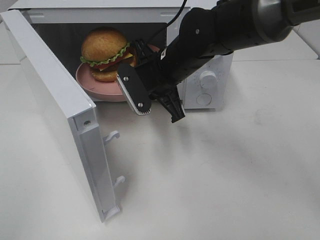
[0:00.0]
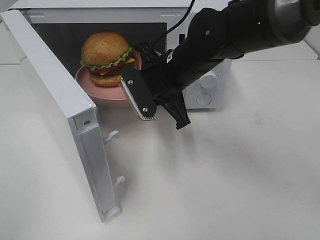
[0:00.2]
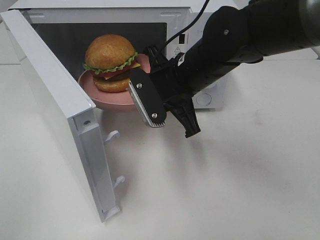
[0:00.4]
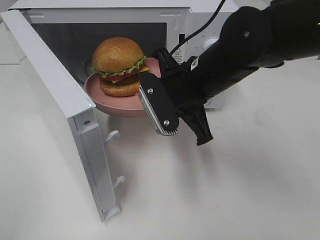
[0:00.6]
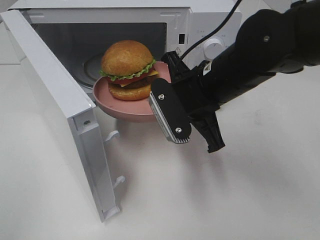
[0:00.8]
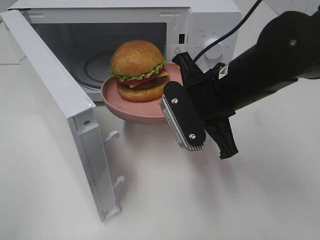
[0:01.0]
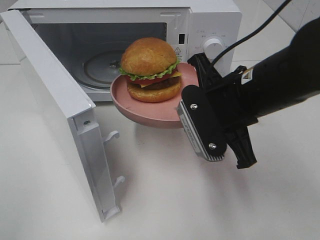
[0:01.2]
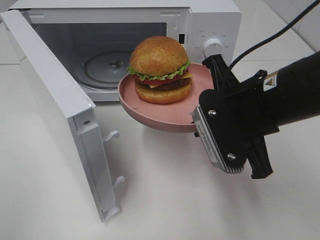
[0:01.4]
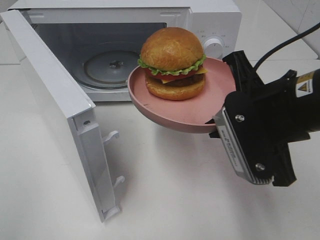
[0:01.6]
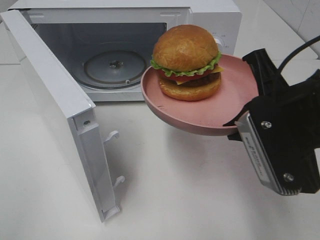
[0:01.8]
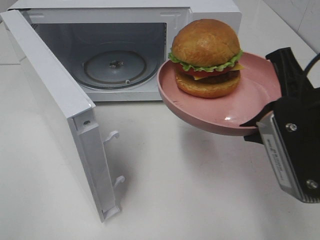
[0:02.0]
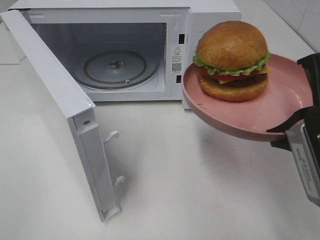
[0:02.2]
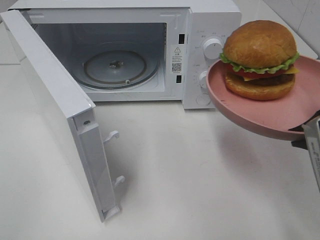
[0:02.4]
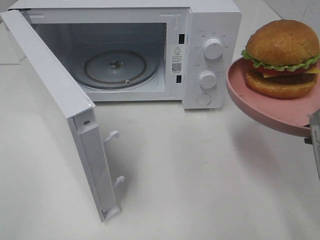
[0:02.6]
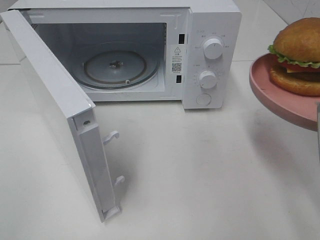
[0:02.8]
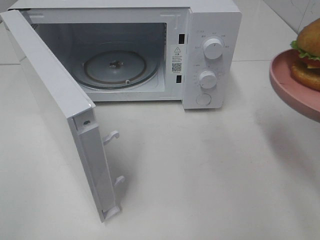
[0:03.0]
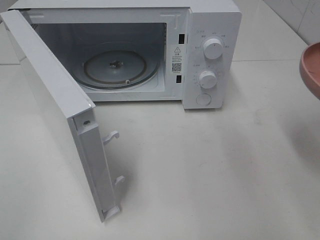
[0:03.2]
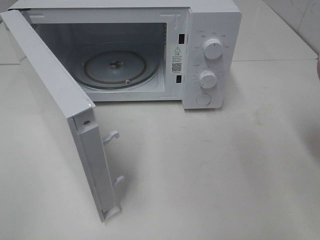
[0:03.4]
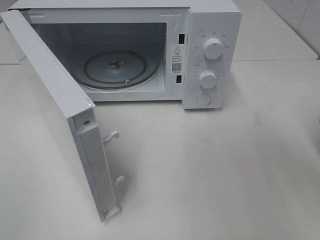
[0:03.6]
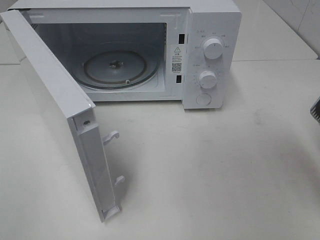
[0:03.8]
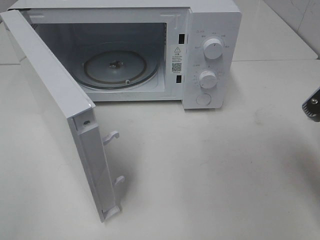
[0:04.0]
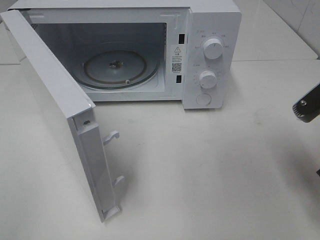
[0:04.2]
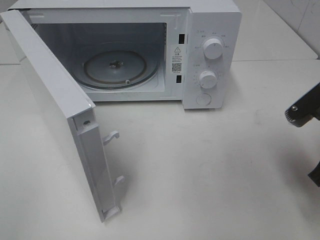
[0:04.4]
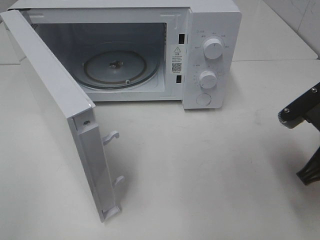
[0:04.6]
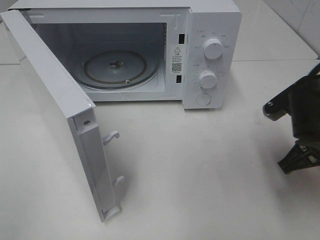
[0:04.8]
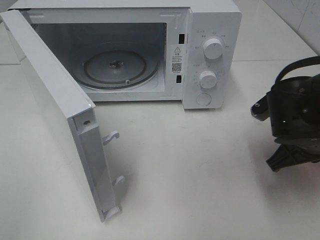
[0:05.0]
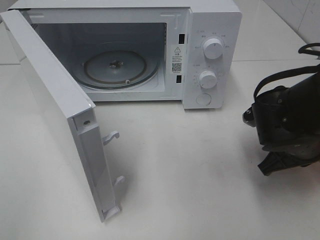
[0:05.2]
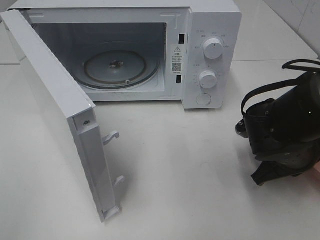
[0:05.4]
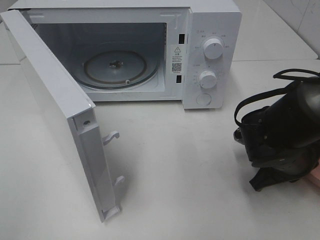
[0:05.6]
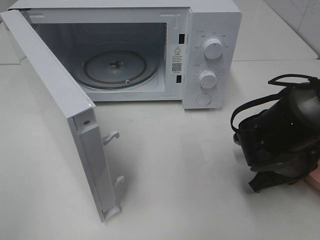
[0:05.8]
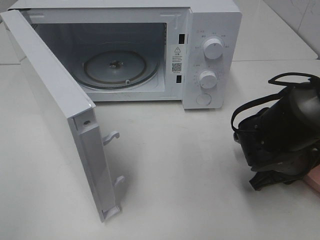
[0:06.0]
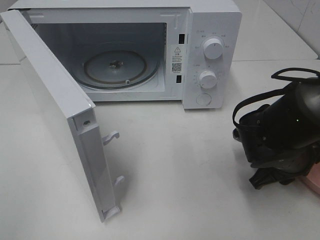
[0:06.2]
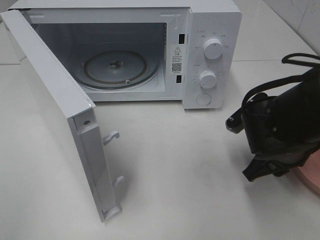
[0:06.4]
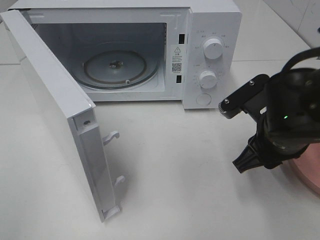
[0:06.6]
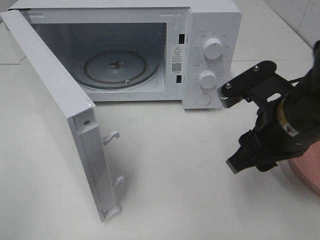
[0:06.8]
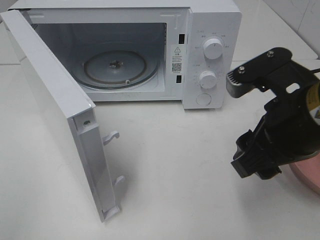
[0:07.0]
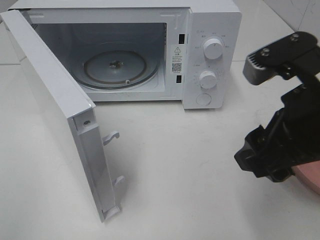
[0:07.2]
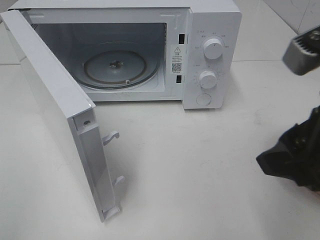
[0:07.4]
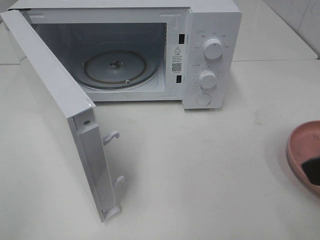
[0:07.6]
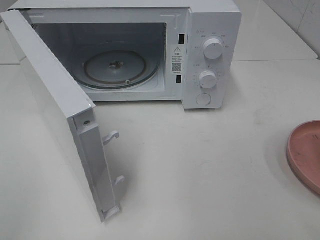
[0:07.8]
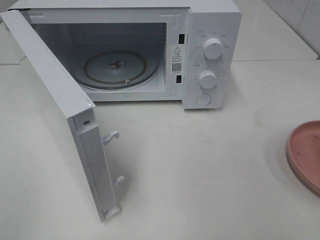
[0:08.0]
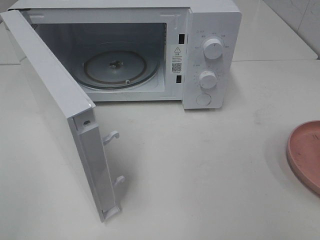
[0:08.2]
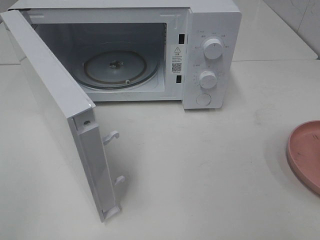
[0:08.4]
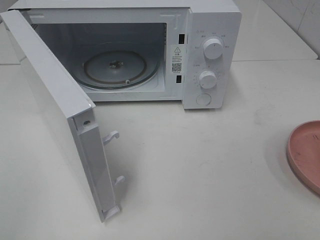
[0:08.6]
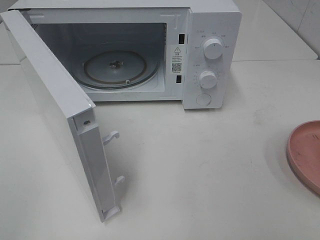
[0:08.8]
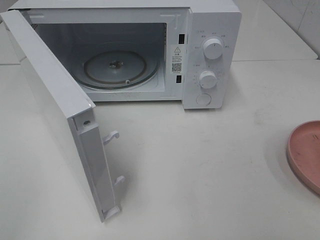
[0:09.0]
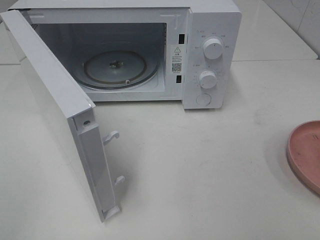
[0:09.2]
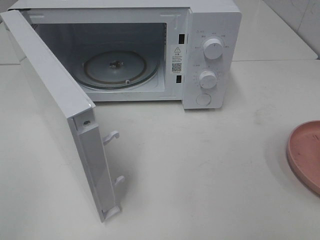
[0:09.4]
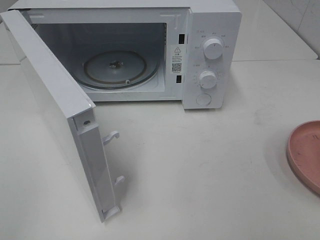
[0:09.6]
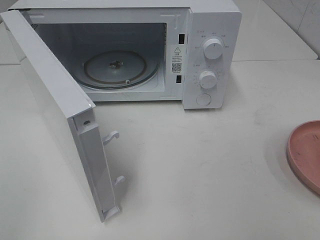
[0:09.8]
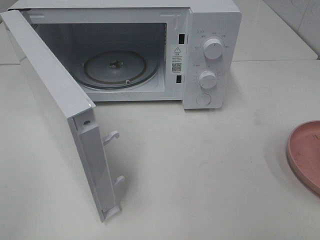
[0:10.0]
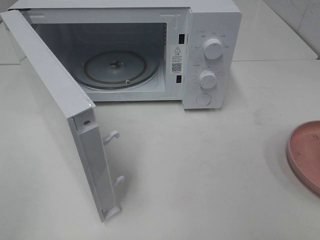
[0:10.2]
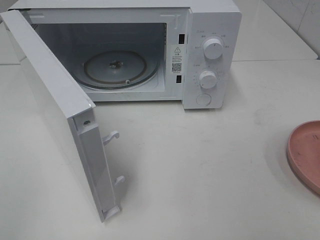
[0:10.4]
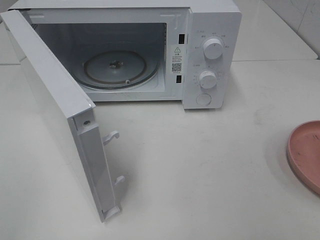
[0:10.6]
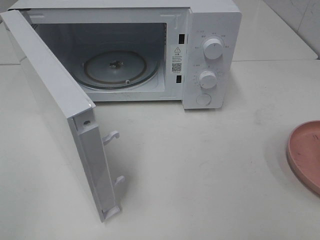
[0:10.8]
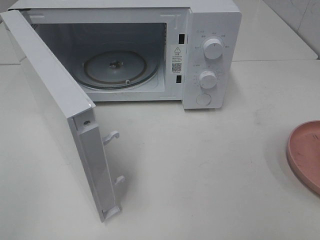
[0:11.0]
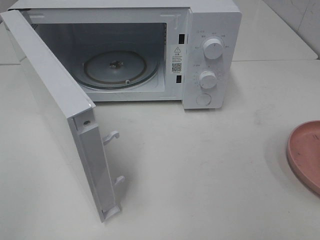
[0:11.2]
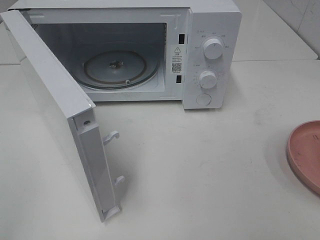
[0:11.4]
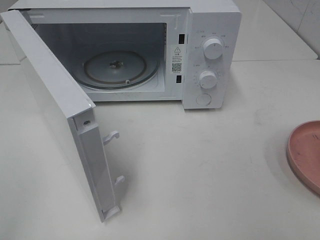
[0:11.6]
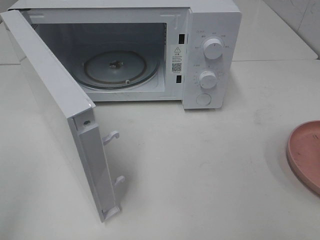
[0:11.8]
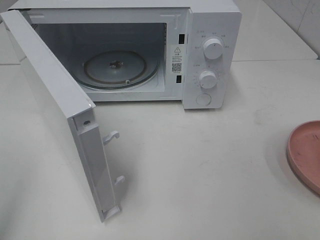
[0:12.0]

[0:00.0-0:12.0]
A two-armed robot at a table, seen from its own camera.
Task of the whole recording: Heat the burger.
Step, 0:00.0 to 0:06.4: Right hand: place the plate on the table.
0:00.0 to 0:01.6: The right gripper shifts approximately 20 cm backward and to the right.
0:01.6 to 0:03.0: The right gripper travels to the right and backward by about 10 cm.
0:03.0 to 0:04.4: The right gripper heads downward, covering some 5 cm.
0:04.4 to 0:06.0: The right gripper travels downward and forward by some 10 cm.
0:06.0 to 0:07.6: The right gripper heads upward and backward, covering about 25 cm, and opens up.
0:07.6 to 0:09.0: The right gripper is displaced backward and to the right by roughly 15 cm.
0:09.0 to 0:10.4: Neither gripper changes place.

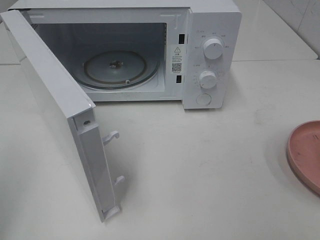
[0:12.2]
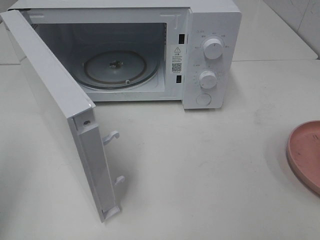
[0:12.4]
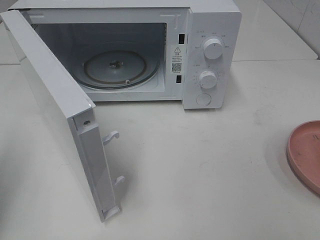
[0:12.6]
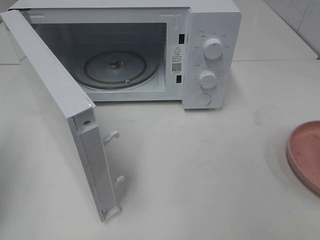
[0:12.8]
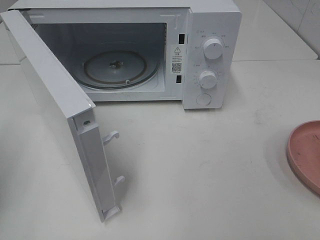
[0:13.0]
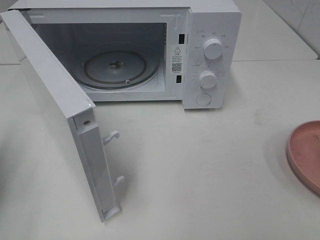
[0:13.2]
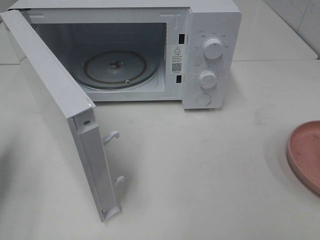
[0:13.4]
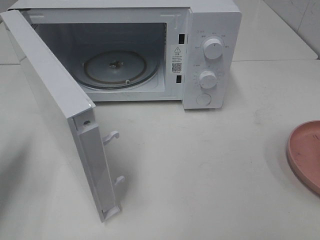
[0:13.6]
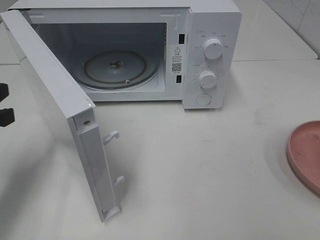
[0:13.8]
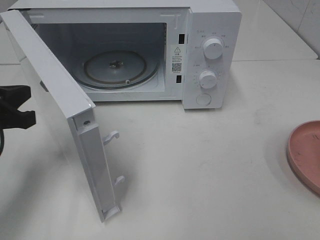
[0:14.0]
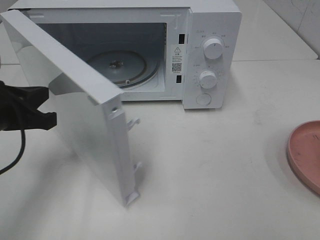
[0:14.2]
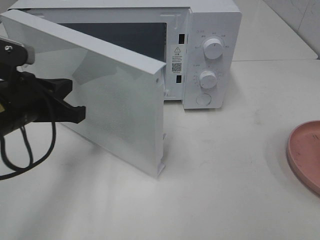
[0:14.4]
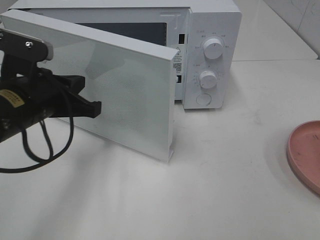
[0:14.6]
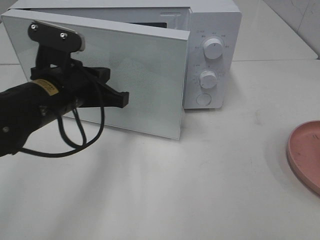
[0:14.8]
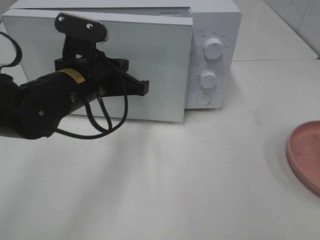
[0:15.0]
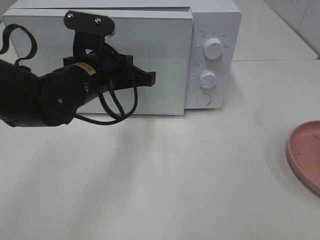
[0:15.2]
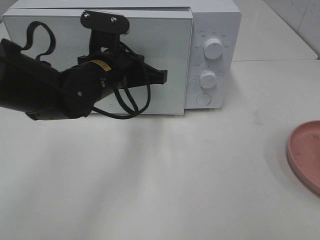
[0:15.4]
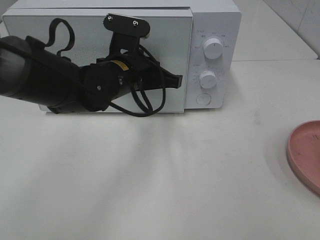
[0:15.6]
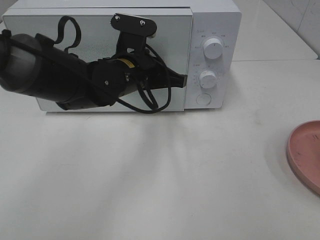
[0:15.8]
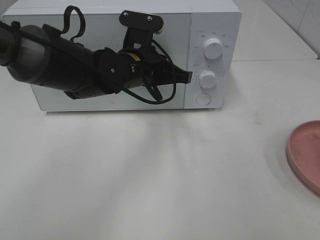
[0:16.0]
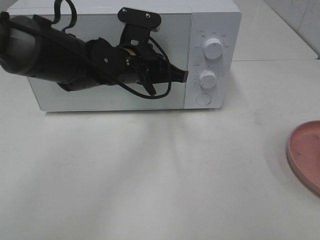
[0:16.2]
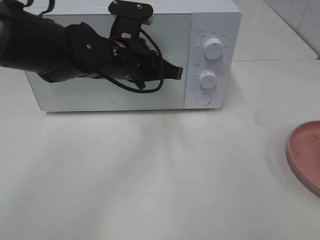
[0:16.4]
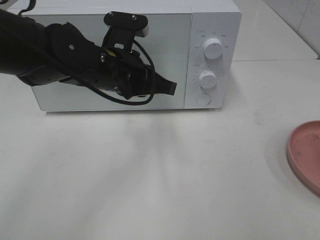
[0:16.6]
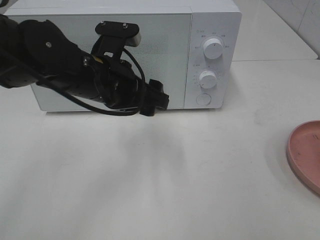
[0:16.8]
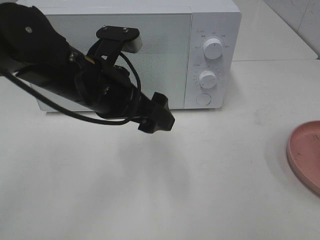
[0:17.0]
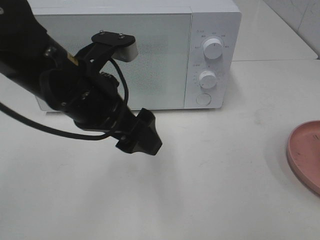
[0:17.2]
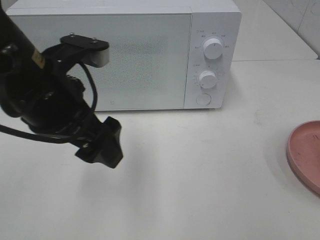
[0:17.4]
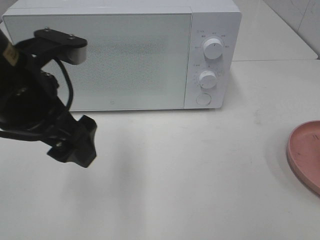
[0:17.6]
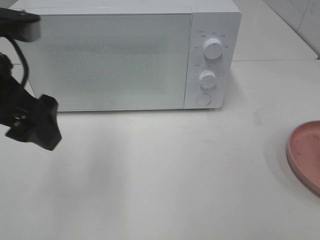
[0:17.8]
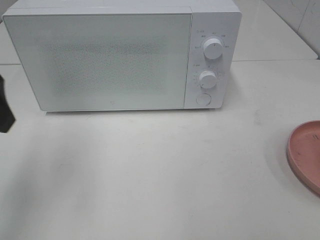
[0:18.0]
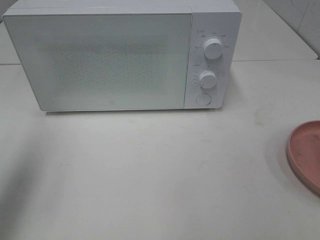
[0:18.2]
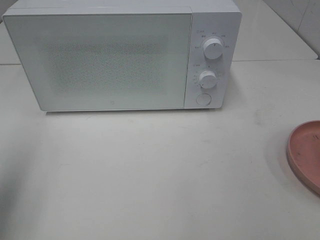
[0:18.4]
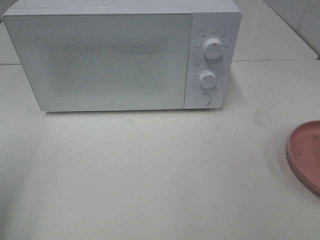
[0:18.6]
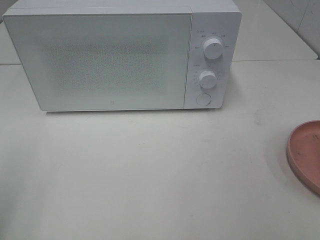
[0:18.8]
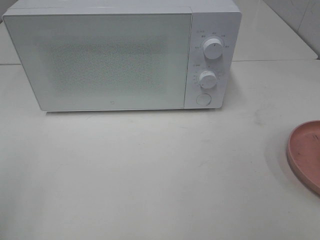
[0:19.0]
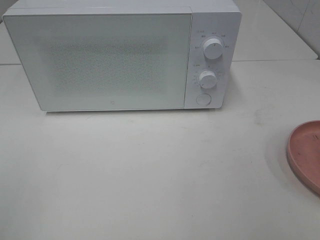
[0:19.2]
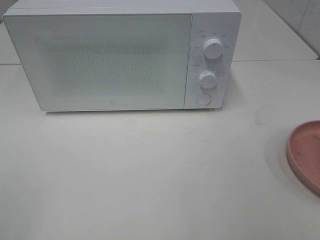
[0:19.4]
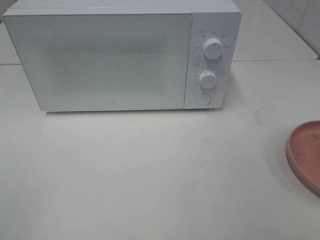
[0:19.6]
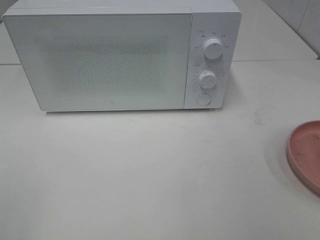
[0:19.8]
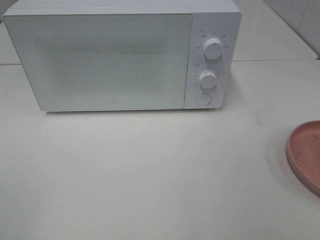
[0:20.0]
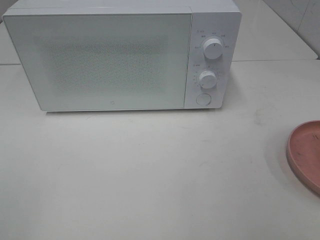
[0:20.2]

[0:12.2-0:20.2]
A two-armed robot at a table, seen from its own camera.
Task of the whole recording: Heat the burger.
Step, 0:12.2 to 0:16.6: Left hand: close the microwave door.
0:12.2 to 0:13.8: The left gripper shifts about 20 cm forward and downward.
0:13.8 to 0:15.4: The left gripper shifts roughly 25 cm to the right and forward.
0:15.4 to 0:17.0: The left gripper heads backward, covering roughly 5 cm, and opens up.
0:17.0 to 0:18.6: The left gripper goes roughly 30 cm to the left and backward.

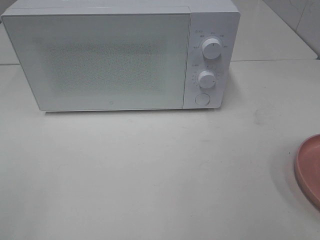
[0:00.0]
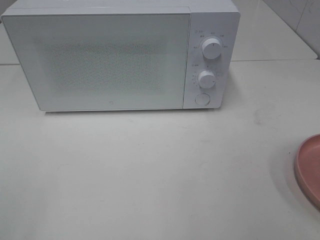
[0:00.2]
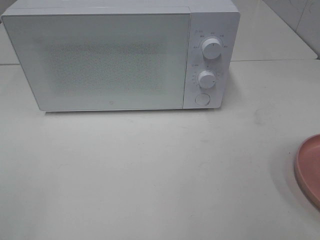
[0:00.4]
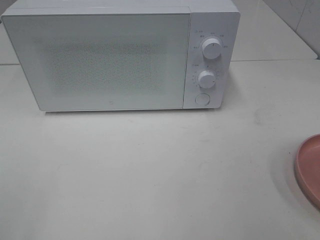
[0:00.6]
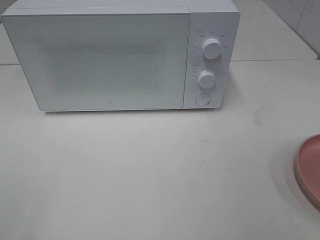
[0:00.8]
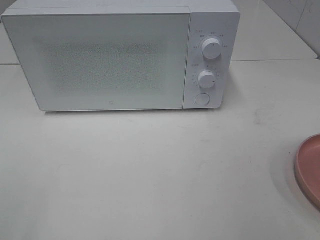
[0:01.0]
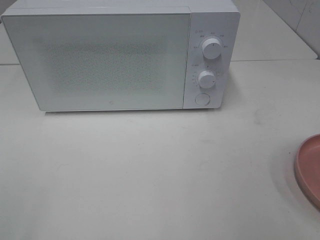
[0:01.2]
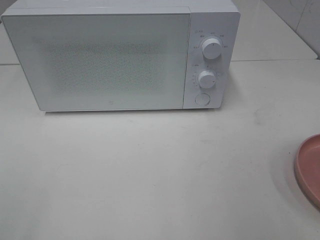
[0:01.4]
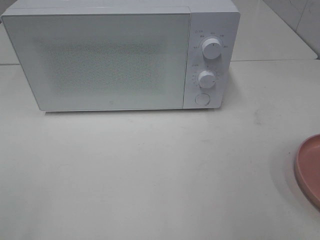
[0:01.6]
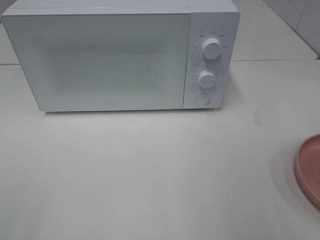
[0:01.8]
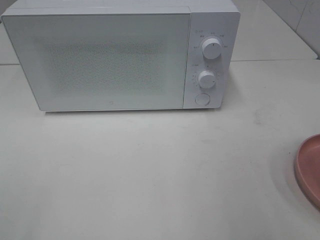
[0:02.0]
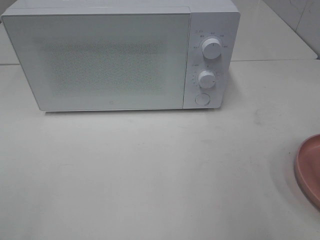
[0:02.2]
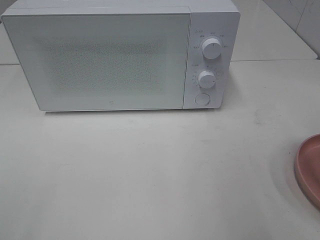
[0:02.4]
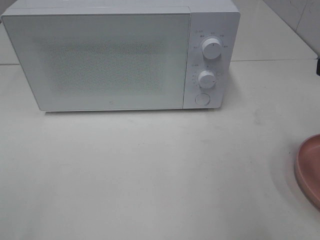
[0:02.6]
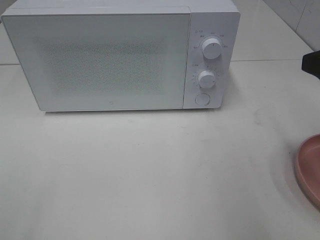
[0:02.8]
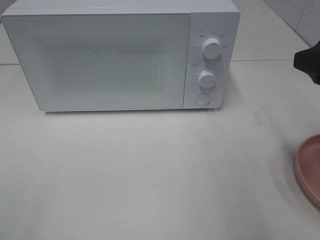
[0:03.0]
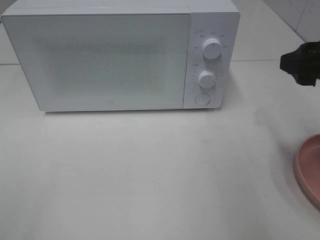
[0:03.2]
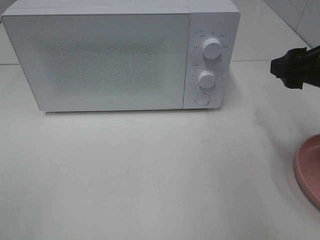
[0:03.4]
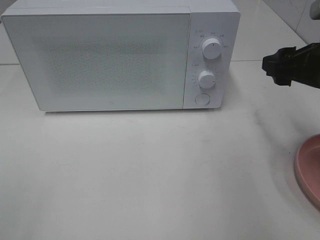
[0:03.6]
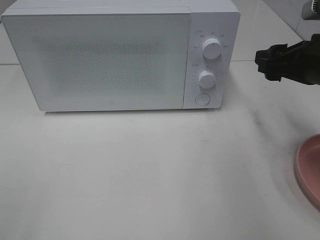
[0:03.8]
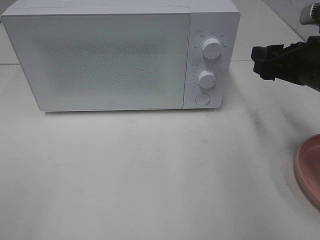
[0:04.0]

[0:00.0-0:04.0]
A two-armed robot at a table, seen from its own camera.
Task of the whole recording: Heat the burger.
0:02.6 to 0:04.0: The right gripper heads forward and downward, covering approximately 15 cm.
